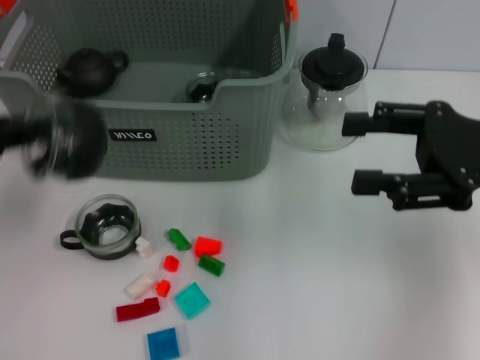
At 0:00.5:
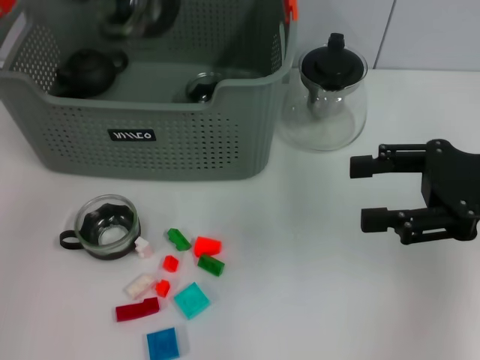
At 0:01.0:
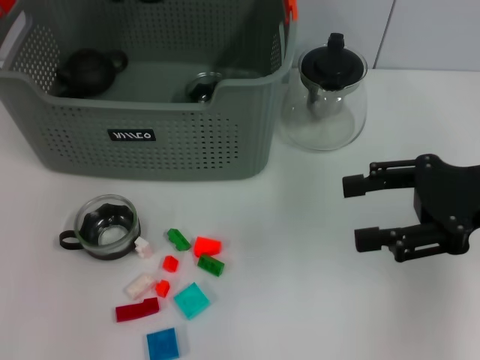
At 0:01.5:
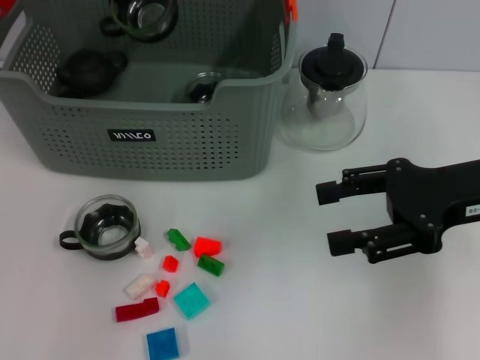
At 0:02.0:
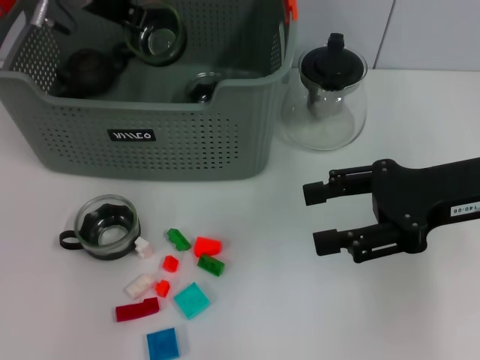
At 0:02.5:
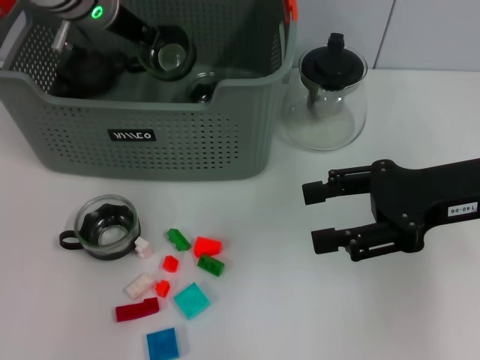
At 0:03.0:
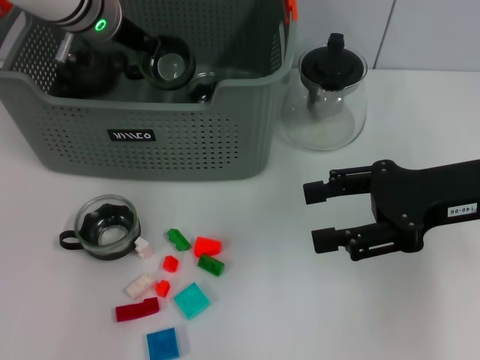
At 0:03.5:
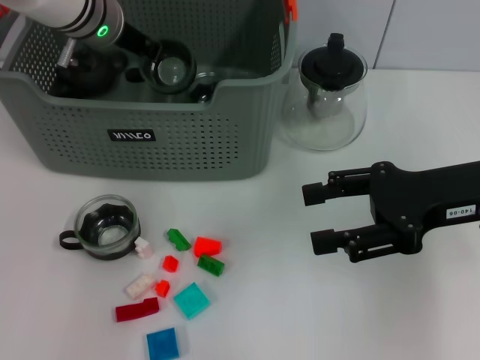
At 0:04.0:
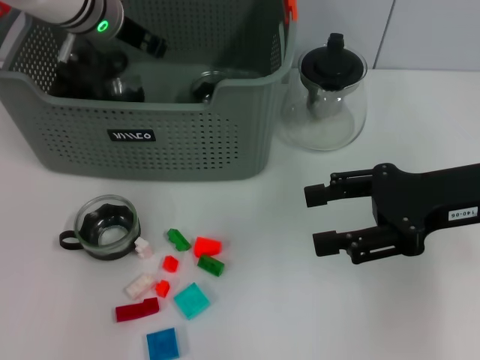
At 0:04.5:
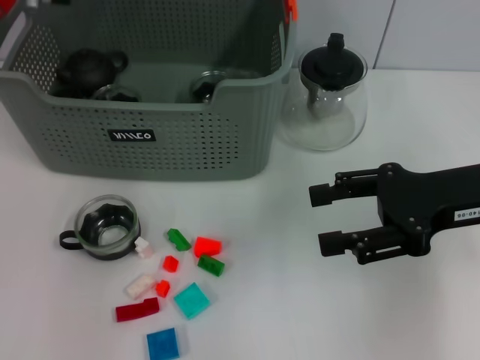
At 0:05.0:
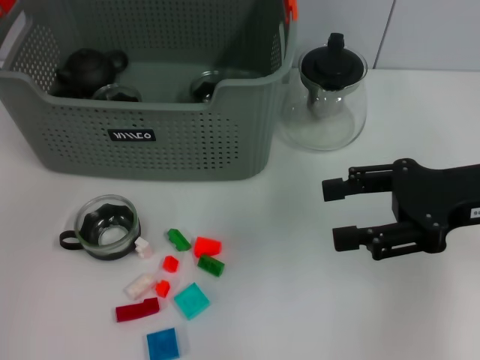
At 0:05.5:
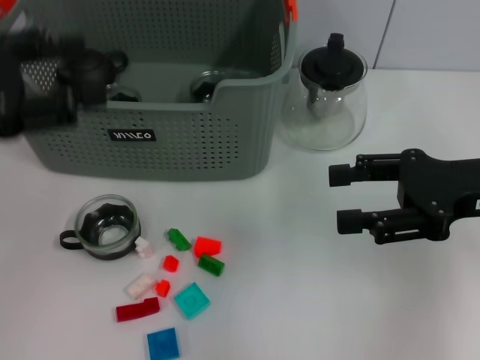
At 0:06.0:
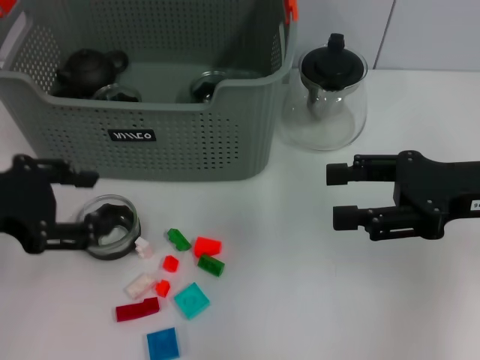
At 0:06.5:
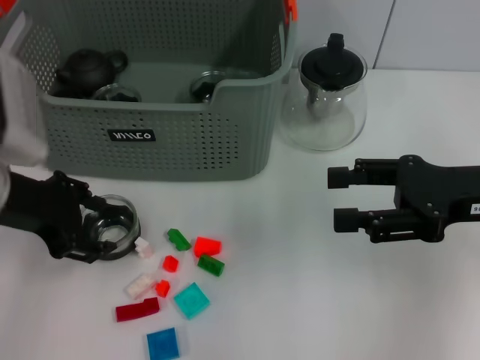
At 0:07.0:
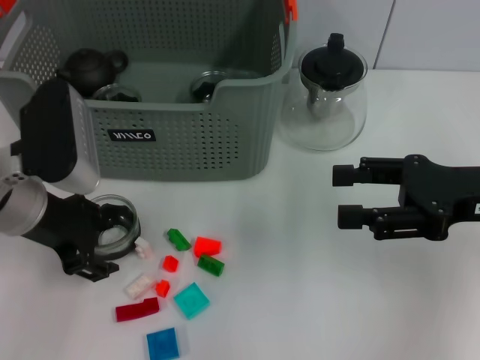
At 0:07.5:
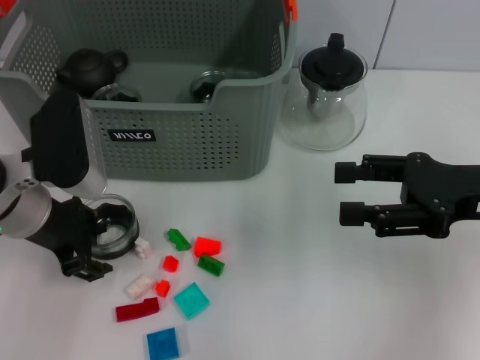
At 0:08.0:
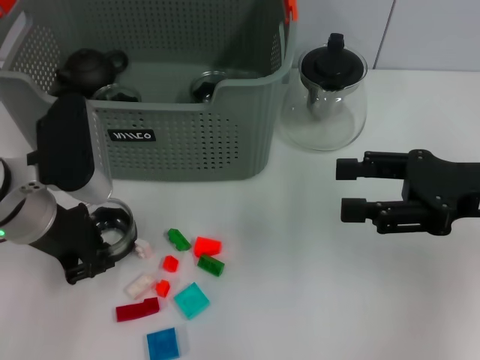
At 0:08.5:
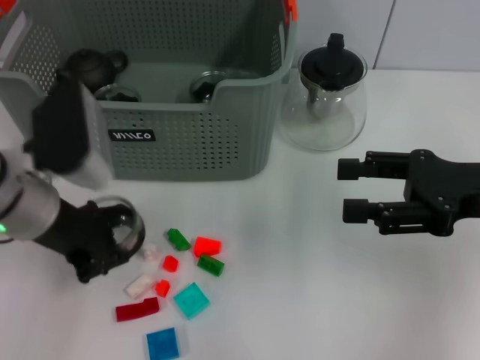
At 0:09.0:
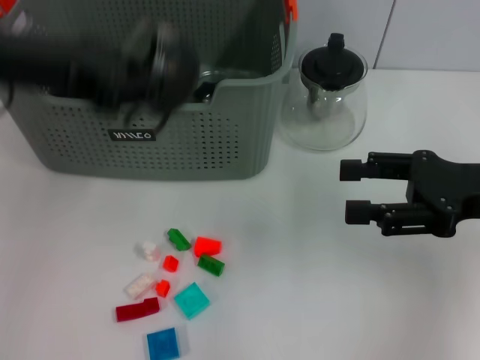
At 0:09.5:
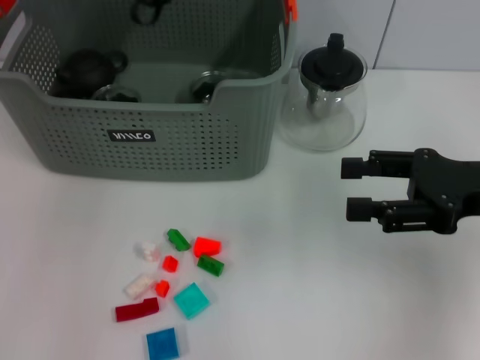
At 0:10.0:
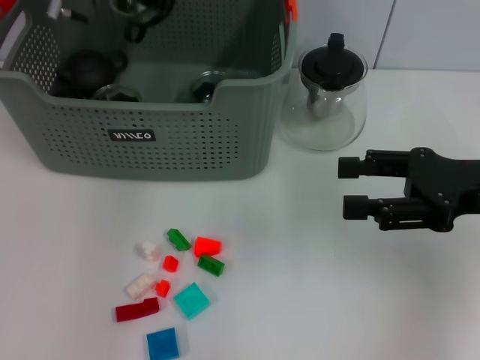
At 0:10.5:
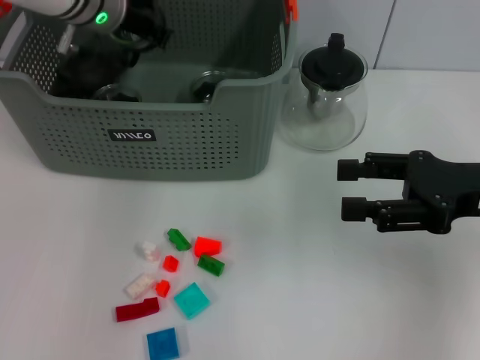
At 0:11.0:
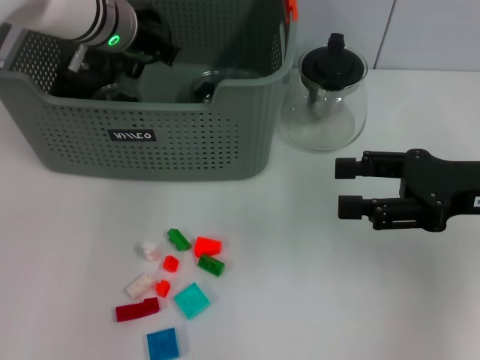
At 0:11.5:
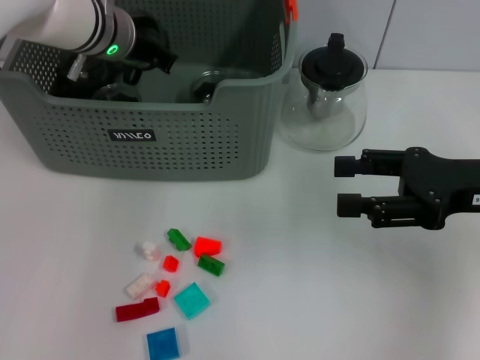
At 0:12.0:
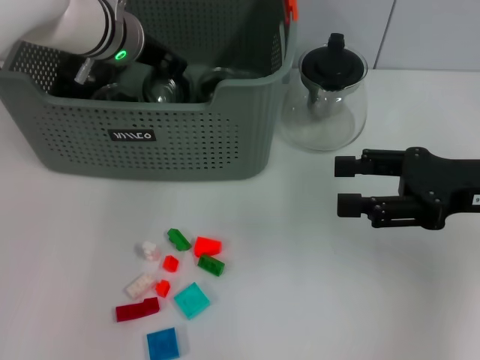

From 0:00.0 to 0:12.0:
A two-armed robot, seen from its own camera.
Task of the whole recording: pick up the teacup on the table and place it into the storage bin, pick up the block on the table and place it into the storage bin.
Step, from 0:00.0 to 0:04.0: Place the cup in the storage box with left gripper.
Step, from 0:04.5 to 0:08.0: Grasp the cup with left gripper.
From 0:00.0 to 0:02.0: The left gripper heads forward and to the right, covering some 25 cm.
From 0:02.0 to 0:04.0: The grippers move only a little.
From 0:04.0 to 0:06.0: The left gripper is displaced backward and to the left by some 25 cm, and opens up.
From 0:06.0 to 0:08.0: The left gripper travels to the right, downward and forward by about 10 cm, and closes up.
From 0:08.0 to 0:10.0: The left gripper moves forward and upward, approximately 20 cm.
From 0:10.0 to 0:12.0: The left gripper moves downward, approximately 5 cm.

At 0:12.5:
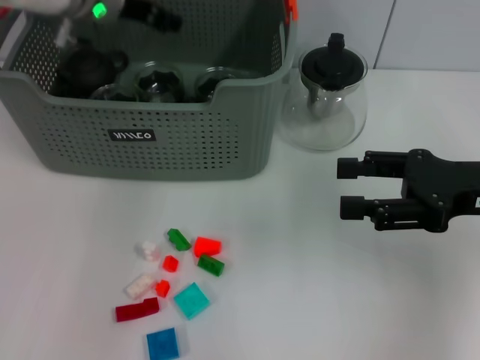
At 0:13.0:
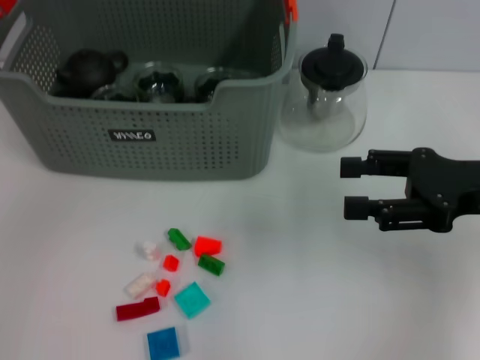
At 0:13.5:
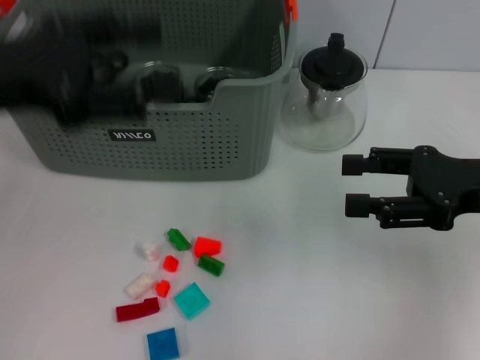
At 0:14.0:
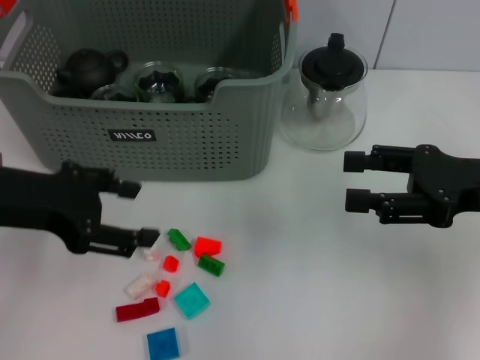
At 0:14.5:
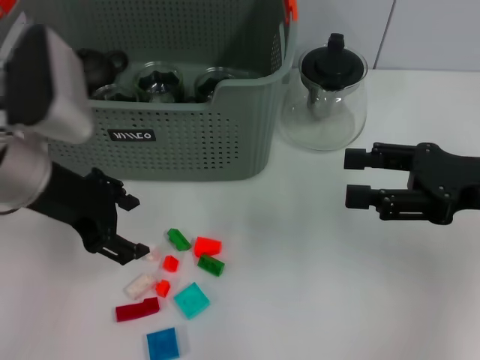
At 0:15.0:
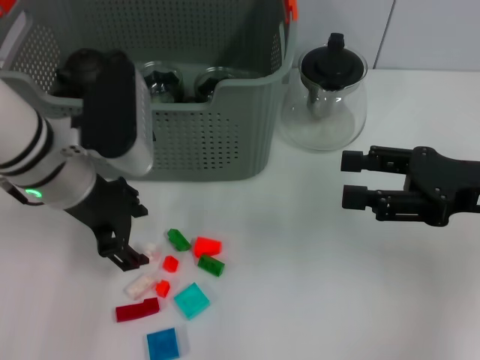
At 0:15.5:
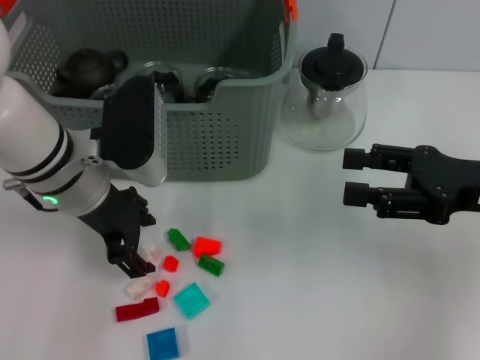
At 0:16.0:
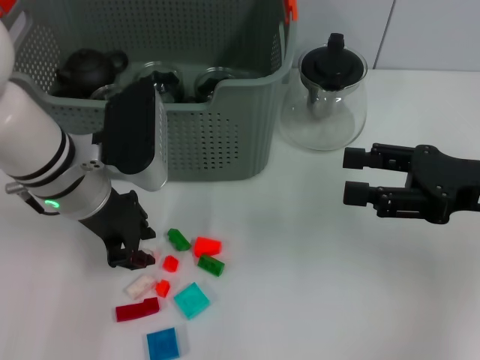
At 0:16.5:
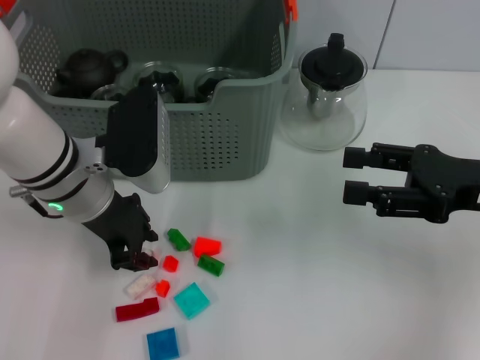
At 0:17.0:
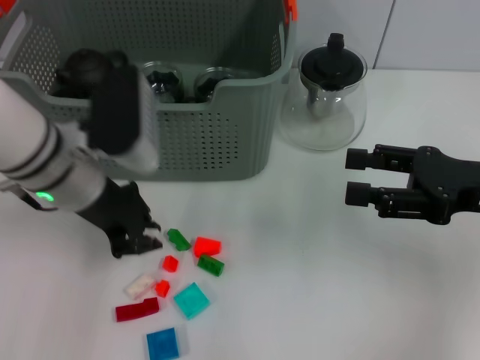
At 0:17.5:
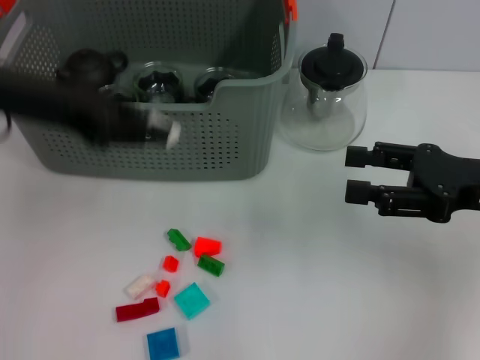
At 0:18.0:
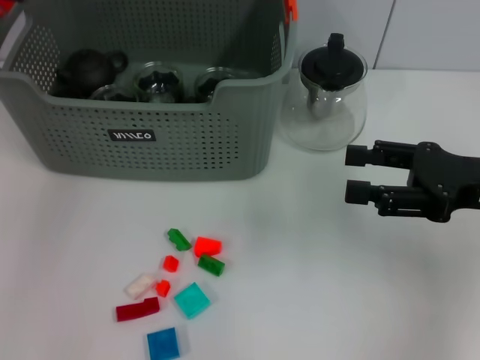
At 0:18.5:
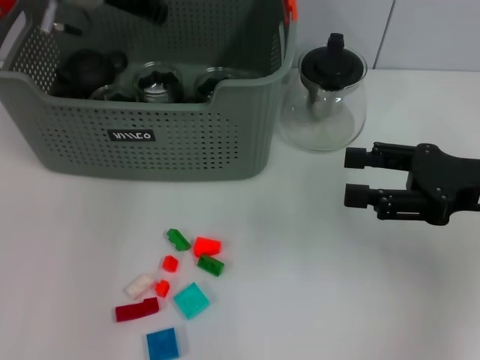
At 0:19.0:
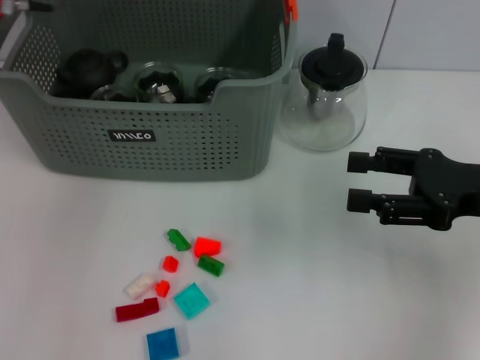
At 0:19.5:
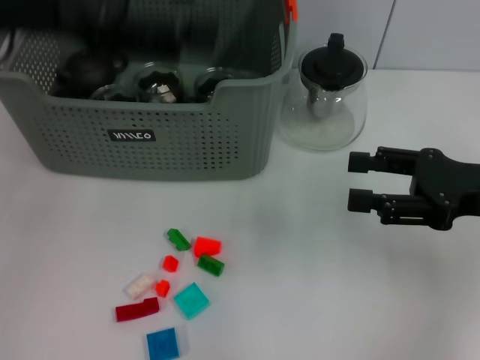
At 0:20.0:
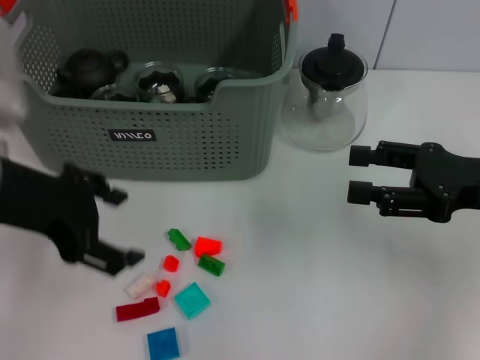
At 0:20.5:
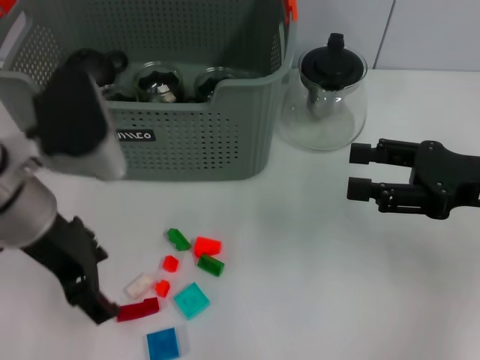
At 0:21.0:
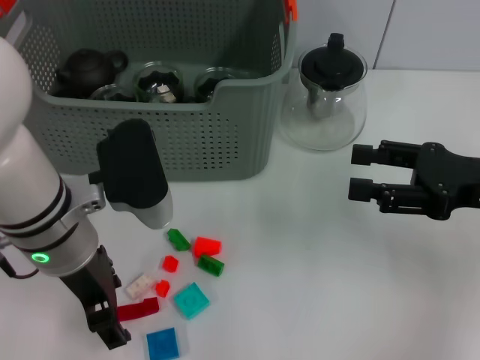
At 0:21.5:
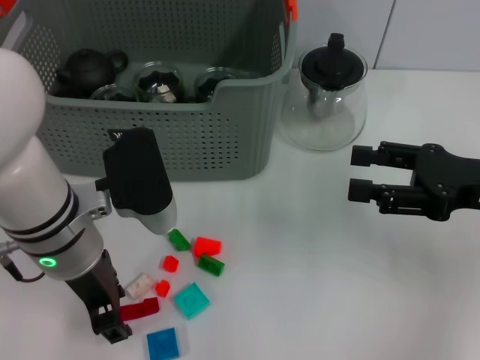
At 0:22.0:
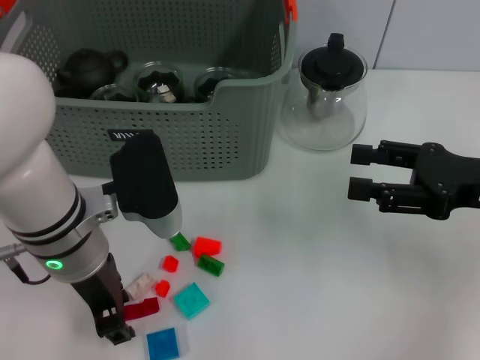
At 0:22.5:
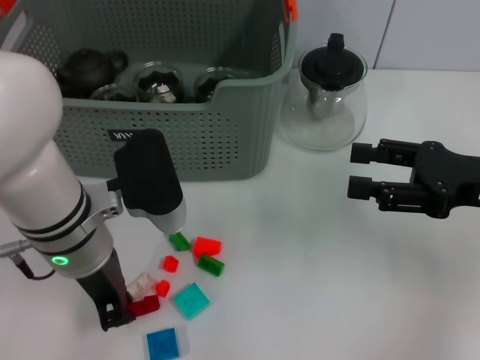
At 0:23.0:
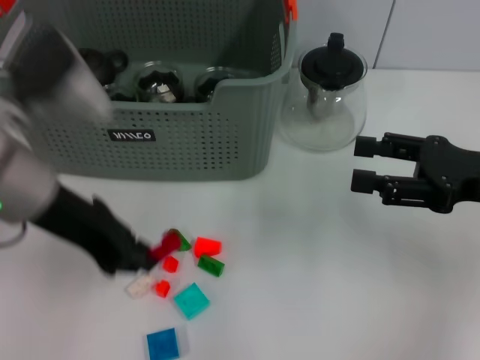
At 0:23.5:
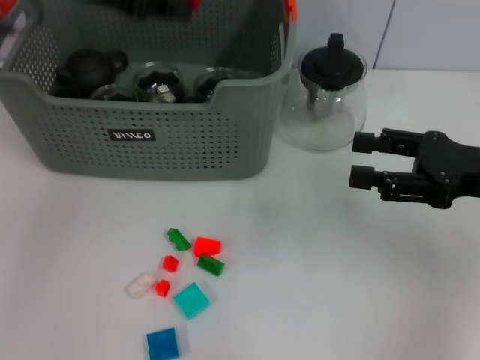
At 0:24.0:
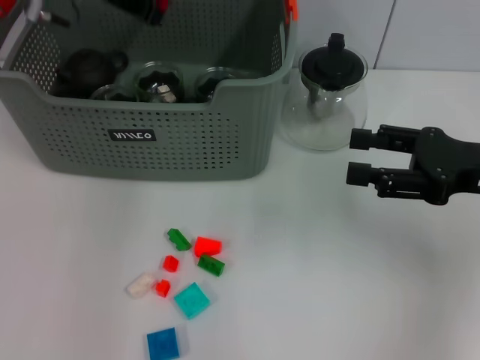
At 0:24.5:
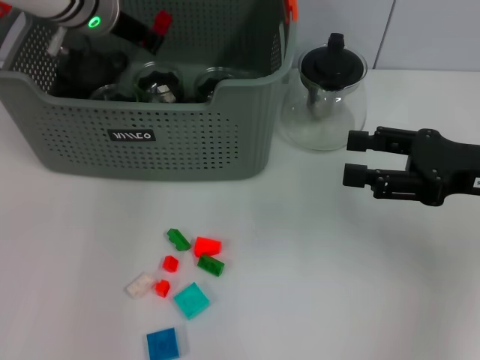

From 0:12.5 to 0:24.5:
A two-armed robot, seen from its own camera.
Task of the whole recording: pick up the teacup on the table and place it into the storage bin, pick up the block on the table and place it into the storage bin.
Step, from 0:12.5 to 0:16.5: Grasp the white block with left gripper.
Step, from 0:17.0 to 0:18.5: Place the white block in the storage box with left gripper.
Step, from 0:19.0 to 0:22.0: Grasp the red block with left gripper.
From 0:12.5 to 0:14.5: The left gripper moves backward, roughly 15 cm, and opens.
From 0:14.5 to 0:16.5: The left gripper ends up about 5 cm from where it was, and closes up.
From 0:16.5 to 0:18.5: The left gripper goes about 15 cm forward and upward.
From 0:18.5 to 0:20.5: The left gripper travels backward by approximately 20 cm, and opens its fingers.
From 0:20.5 to 0:22.5: The left gripper shifts some 5 cm downward, and closes up.
From 0:22.5 to 0:24.5: The left gripper is displaced forward and upward by roughly 20 cm.

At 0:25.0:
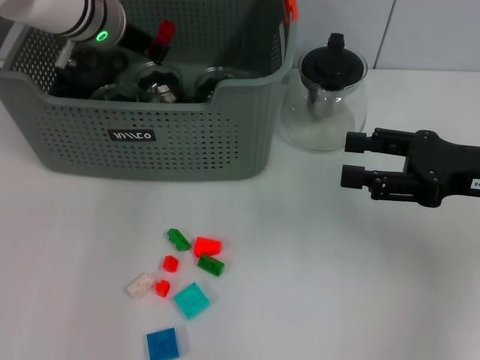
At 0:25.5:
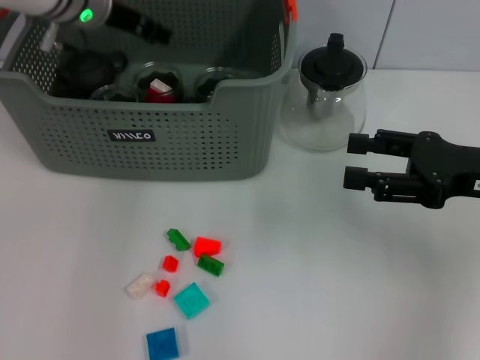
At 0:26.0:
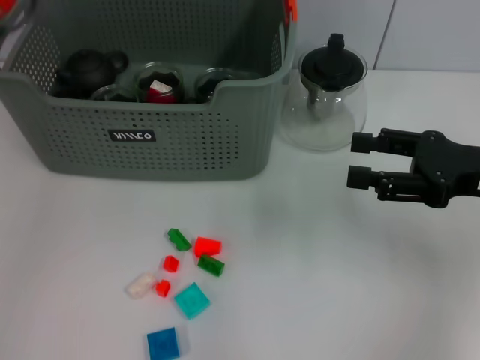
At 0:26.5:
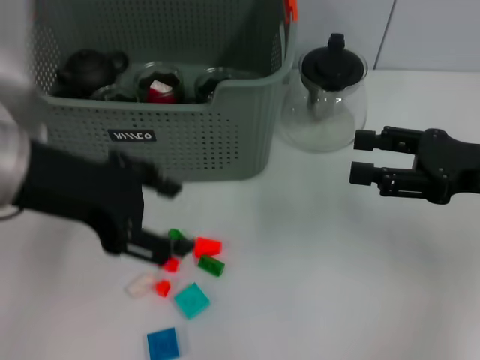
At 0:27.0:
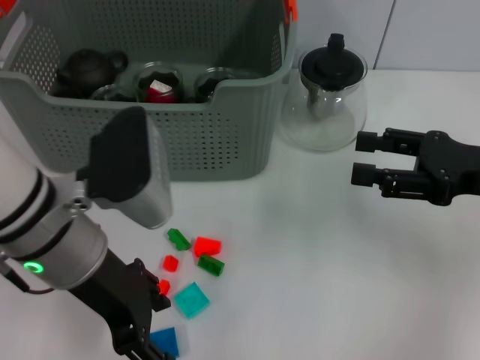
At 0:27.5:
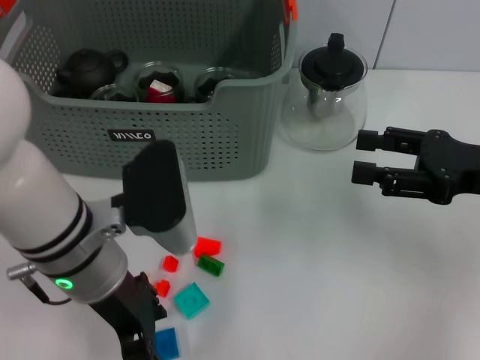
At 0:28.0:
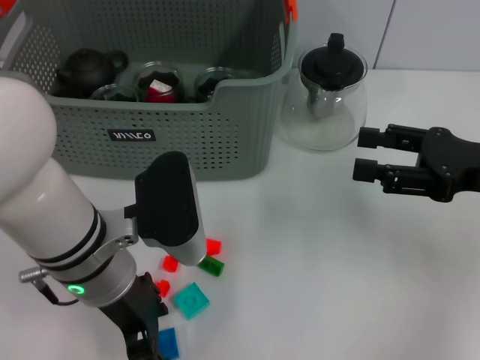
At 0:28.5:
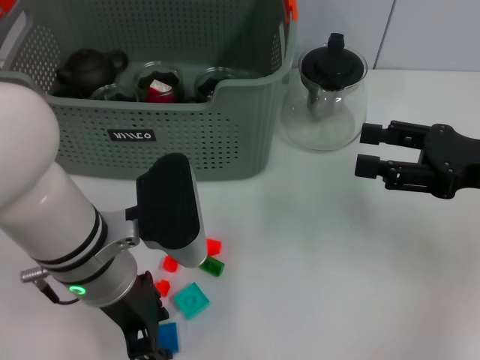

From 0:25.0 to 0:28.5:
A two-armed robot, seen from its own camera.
Task of the whole recording: pick up the teacup on the table and place it into the storage bin, pick up the block on the table and place it into the storage bin.
From 0:25.0 to 0:27.0: The left gripper goes about 20 cm backward, and opens its fingers.
From 0:27.0 to 0:28.5: The left gripper moves downward, approximately 5 cm.
